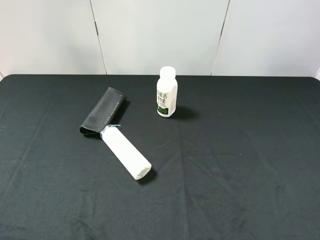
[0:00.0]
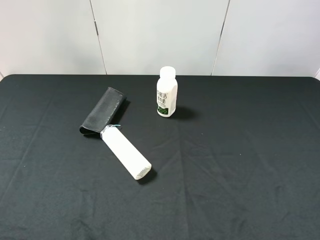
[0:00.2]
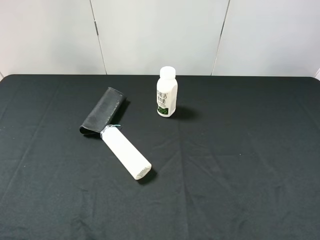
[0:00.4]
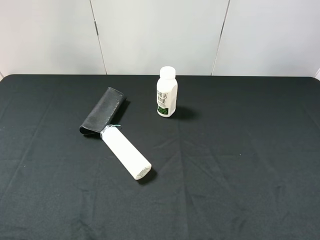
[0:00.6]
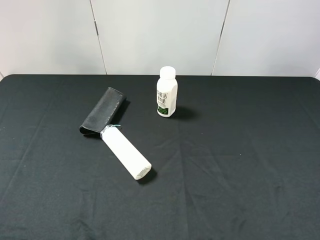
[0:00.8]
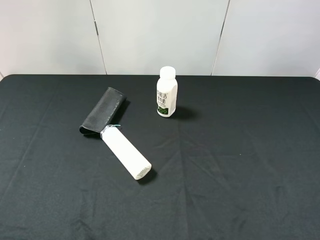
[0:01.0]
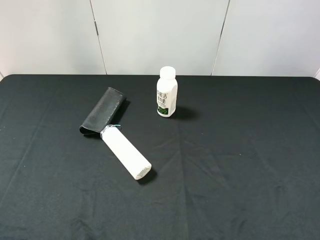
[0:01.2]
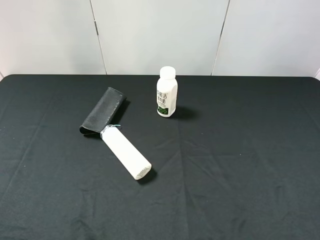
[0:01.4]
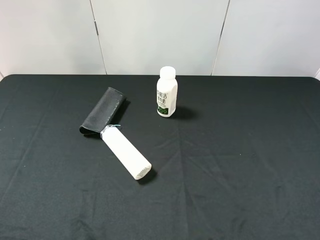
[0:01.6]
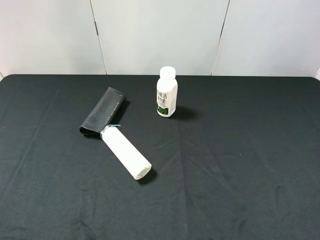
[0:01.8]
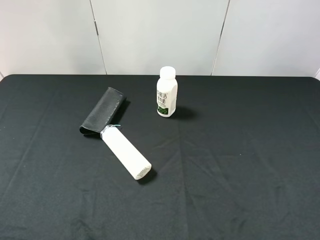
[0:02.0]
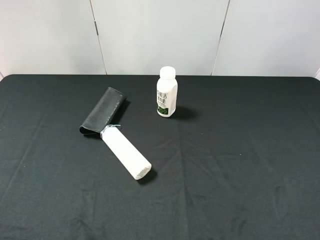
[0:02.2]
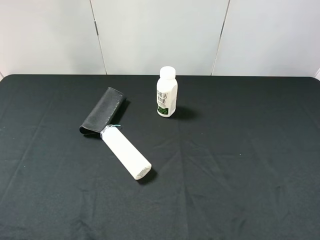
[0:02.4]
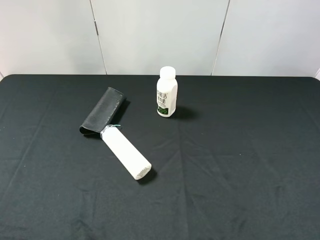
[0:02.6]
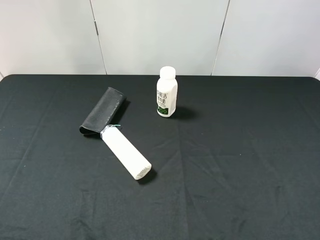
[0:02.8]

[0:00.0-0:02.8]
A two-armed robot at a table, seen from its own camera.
Task of the whole recording: use the right gripper to pick up the item and transfer it from the right gripper to the left gripper.
0:01.4 to 0:02.8: The two grippers keep their place.
